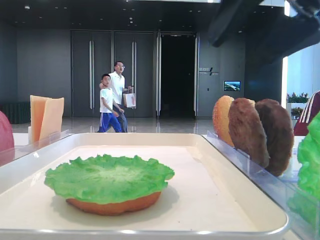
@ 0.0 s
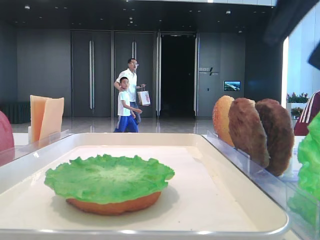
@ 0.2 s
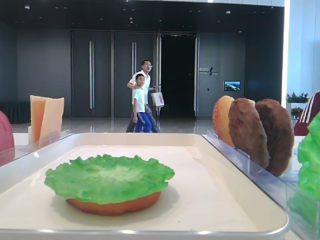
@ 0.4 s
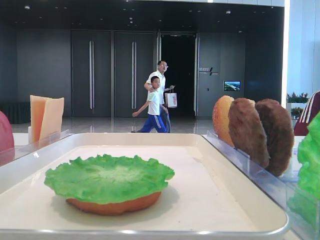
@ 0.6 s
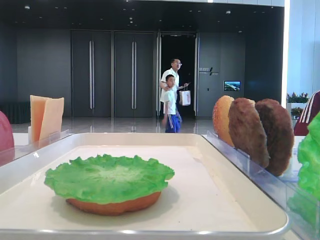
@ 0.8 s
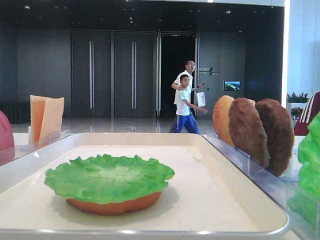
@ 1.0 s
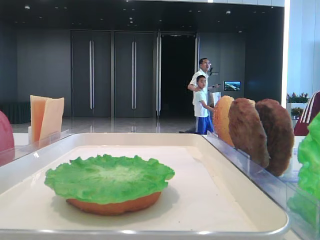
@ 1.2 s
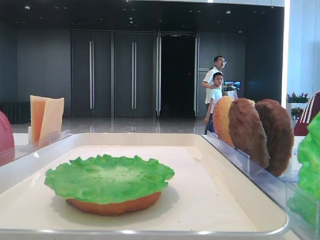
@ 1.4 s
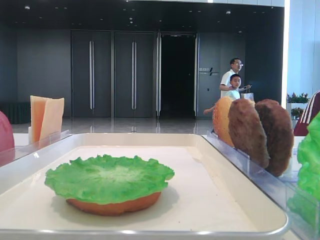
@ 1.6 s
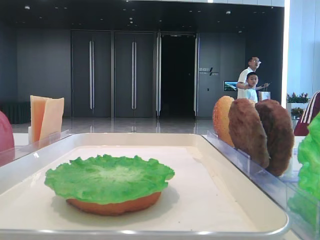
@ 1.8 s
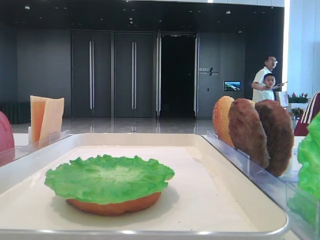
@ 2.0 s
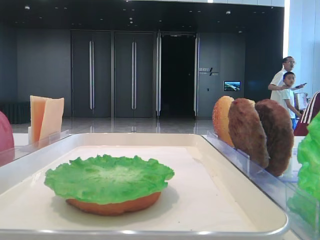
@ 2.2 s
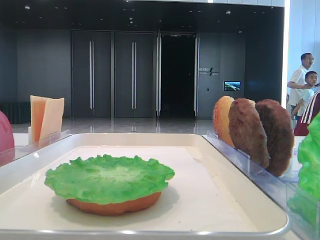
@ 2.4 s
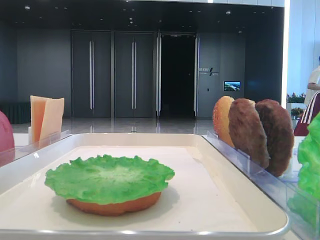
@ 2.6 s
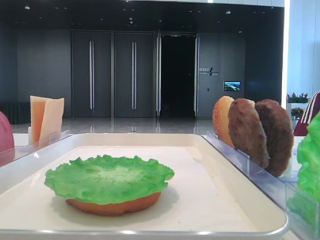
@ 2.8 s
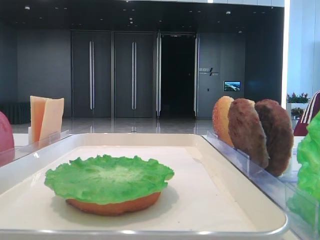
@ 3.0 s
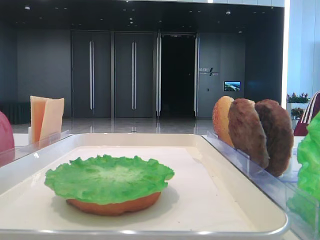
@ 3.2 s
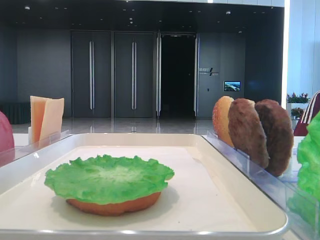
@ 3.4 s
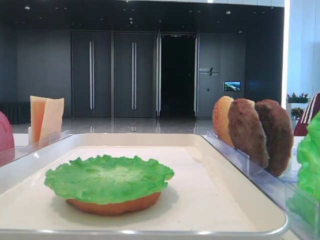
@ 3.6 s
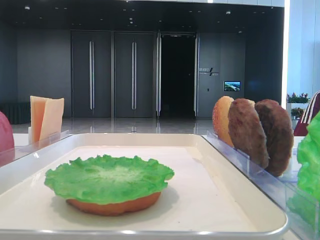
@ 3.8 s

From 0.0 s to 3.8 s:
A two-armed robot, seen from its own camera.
From 0.0 s to 1.2 s: The right gripper is displaced to the right and backward by approximately 15 cm.
From 1.2 s to 2.6 s: The right gripper travels backward by approximately 15 cm.
From 2.6 s to 3.8 s: Neither gripper changes place.

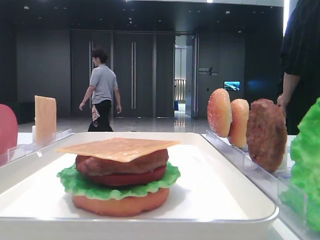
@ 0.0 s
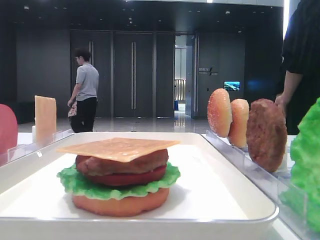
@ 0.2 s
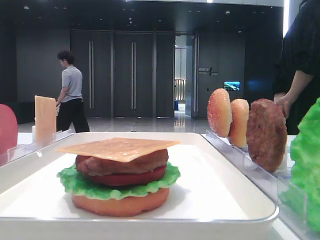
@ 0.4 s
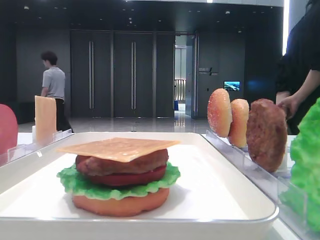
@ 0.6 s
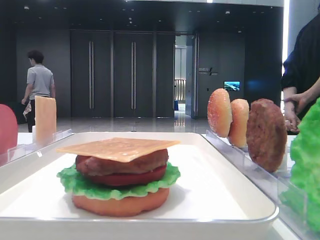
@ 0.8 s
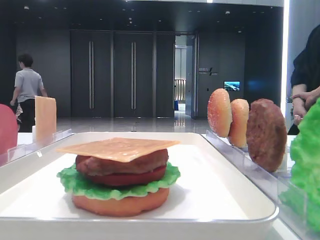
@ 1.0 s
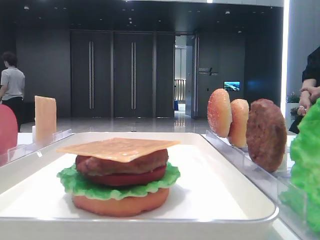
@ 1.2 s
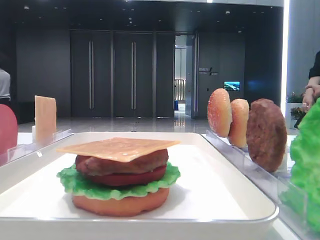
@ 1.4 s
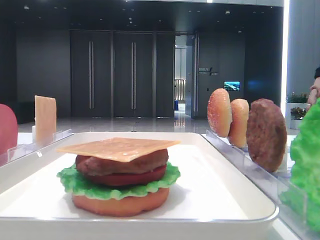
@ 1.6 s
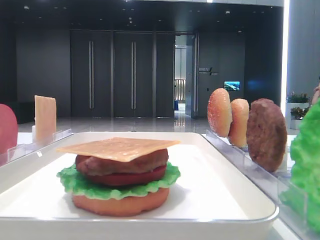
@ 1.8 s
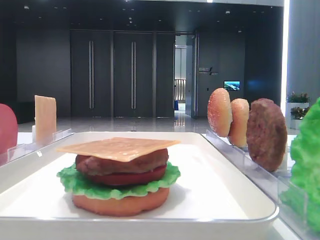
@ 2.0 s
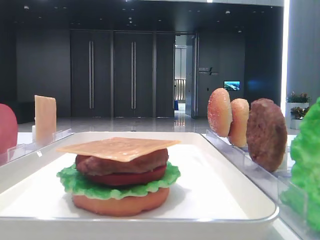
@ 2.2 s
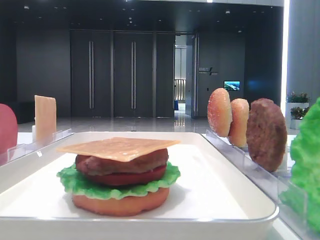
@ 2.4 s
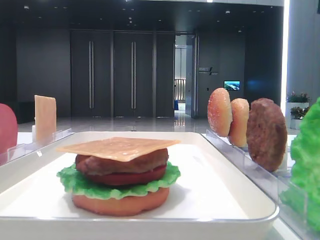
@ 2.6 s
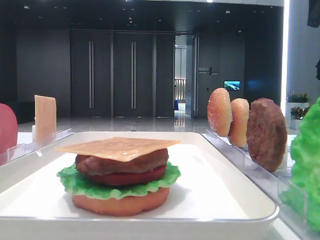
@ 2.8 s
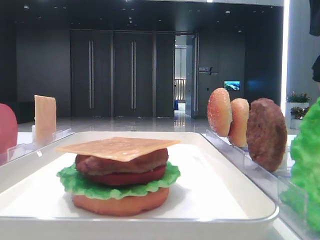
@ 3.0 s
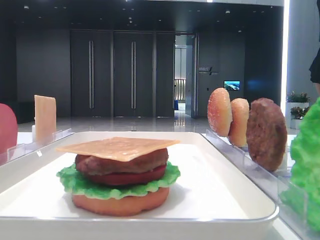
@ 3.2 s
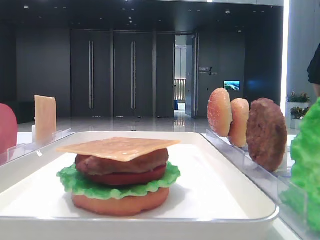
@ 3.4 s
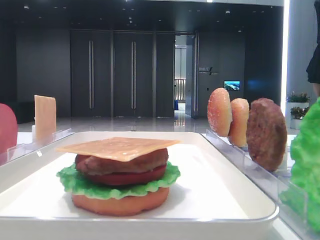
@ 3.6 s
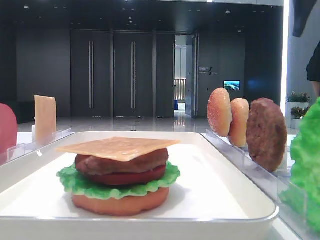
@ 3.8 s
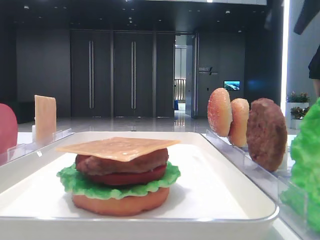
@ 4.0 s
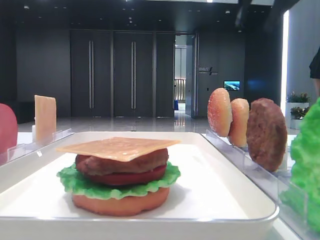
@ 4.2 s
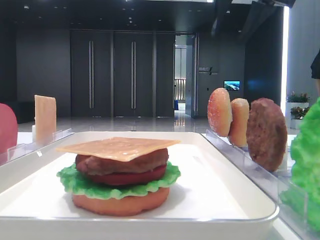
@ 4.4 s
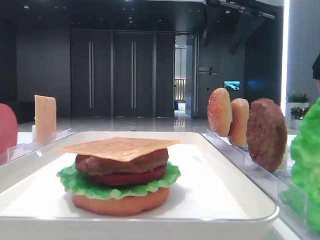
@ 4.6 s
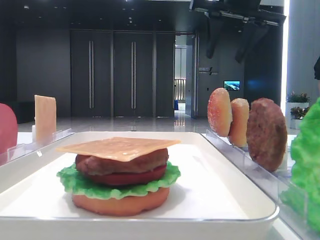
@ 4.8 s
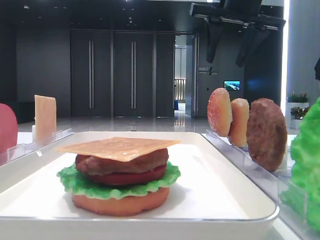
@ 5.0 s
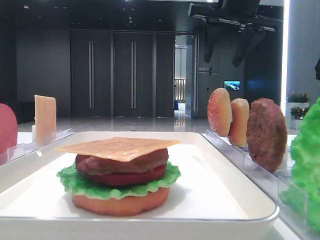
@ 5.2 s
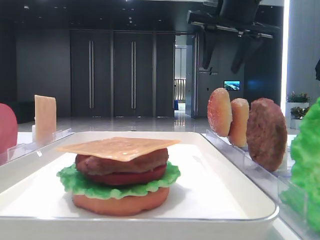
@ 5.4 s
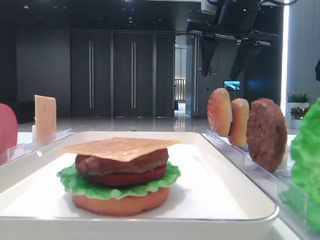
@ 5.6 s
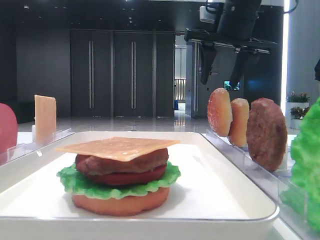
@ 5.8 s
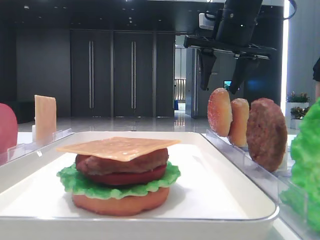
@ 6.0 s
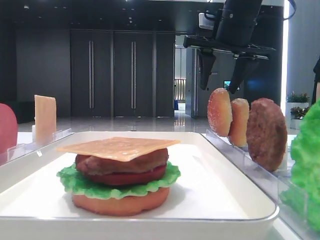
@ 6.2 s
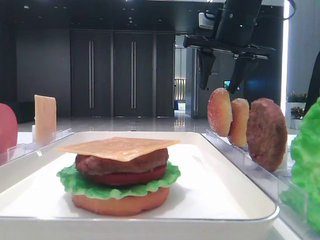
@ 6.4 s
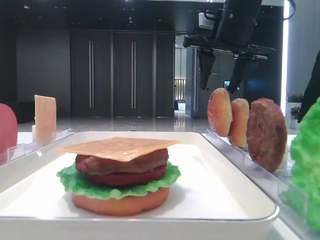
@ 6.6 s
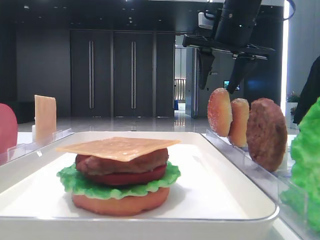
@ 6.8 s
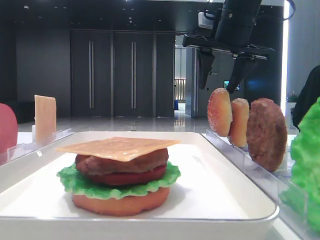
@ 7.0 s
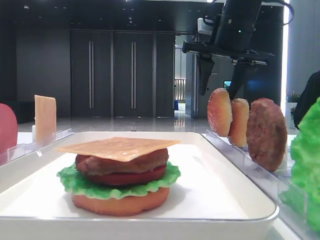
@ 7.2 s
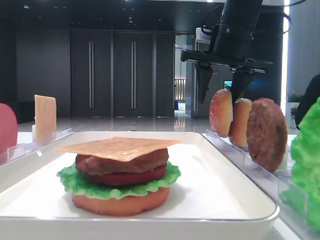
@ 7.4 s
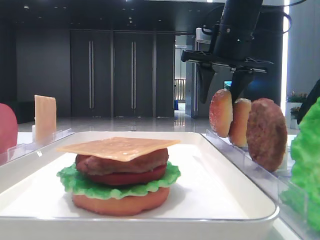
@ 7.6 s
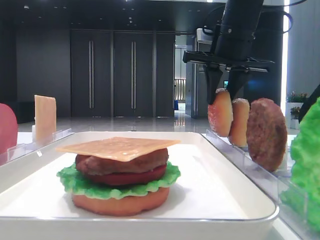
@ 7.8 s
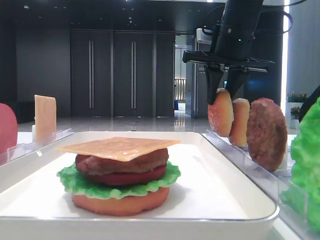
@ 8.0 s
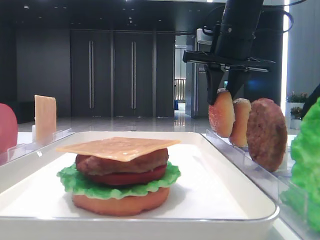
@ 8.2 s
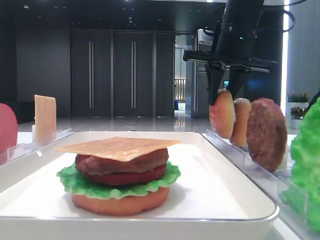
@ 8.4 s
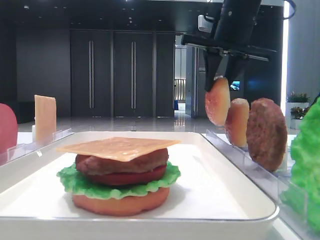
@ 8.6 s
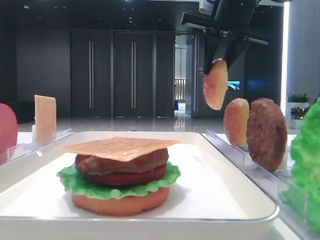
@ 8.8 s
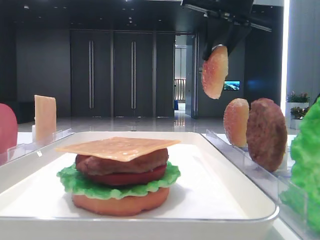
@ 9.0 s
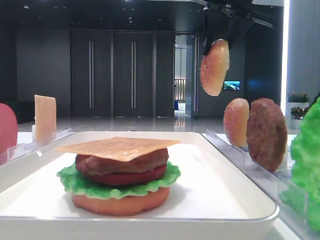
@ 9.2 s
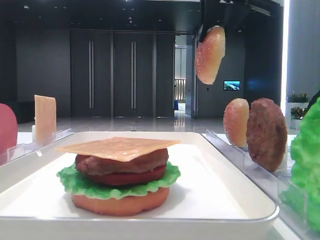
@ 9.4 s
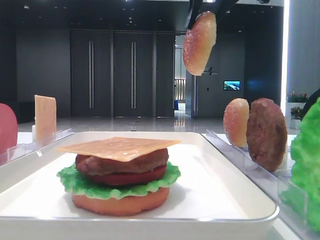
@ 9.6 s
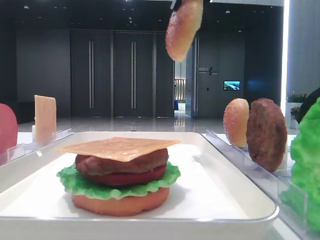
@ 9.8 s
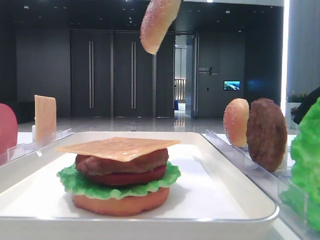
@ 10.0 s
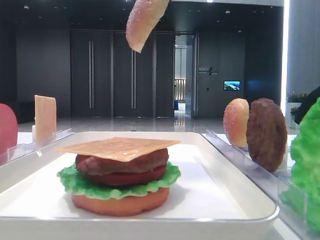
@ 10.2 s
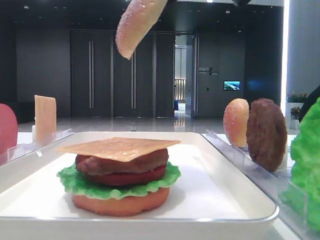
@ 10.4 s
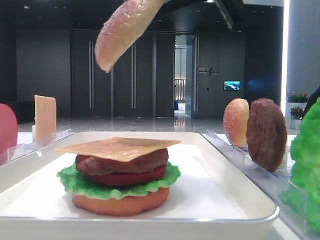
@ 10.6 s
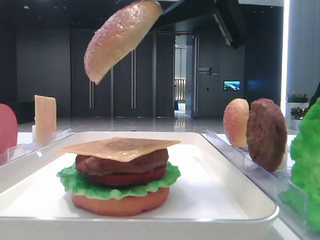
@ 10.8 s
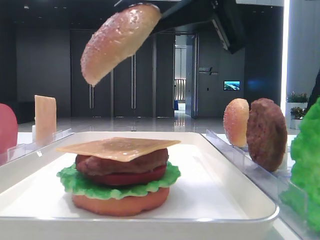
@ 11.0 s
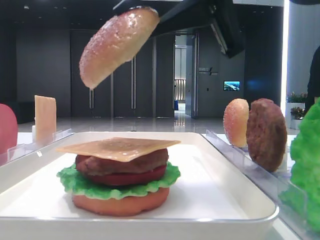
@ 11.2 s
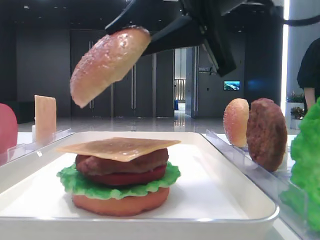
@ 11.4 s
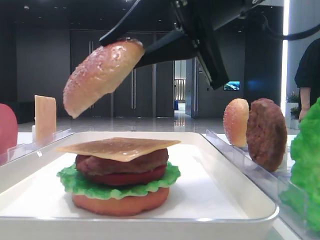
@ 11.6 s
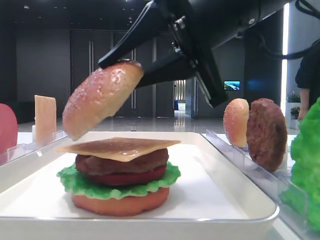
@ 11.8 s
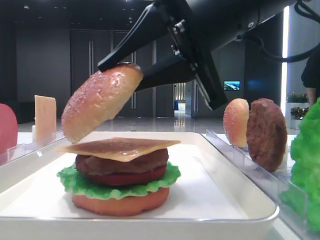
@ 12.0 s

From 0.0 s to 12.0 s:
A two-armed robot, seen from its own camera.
Step, from 0.0 s to 8.0 s: Pick up the top bread slice with the right hand.
From 1.6 s to 3.0 s: The right gripper travels forward by about 30 cm.
From 3.0 s to 4.4 s: The right gripper is displaced to the left by about 15 cm.
From 4.4 s to 6.0 s: The right gripper travels downward by some 10 cm.
From 6.0 s to 7.6 s: The grippers stay close to where they were, moving slightly.
From 7.6 s to 9.0 s: The right gripper travels upward by some 5 cm, and closes.
From 9.0 s to 10.4 s: The right gripper is displaced backward by approximately 15 cm.
From 10.4 s to 12.0 s: The right gripper shifts roughly 10 cm downward.

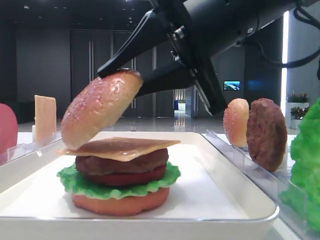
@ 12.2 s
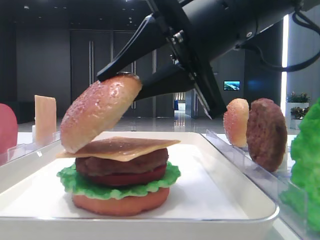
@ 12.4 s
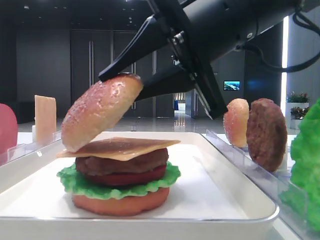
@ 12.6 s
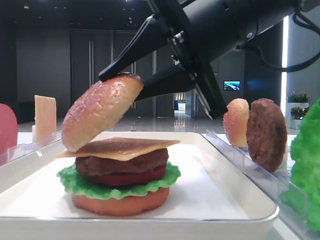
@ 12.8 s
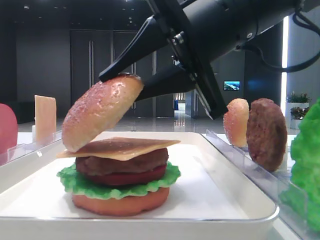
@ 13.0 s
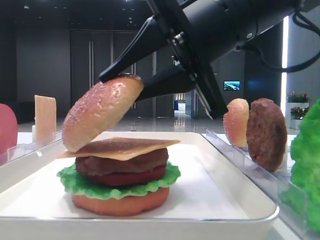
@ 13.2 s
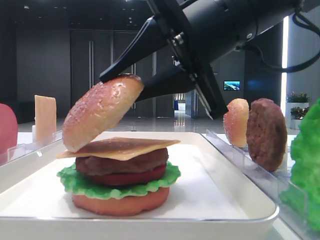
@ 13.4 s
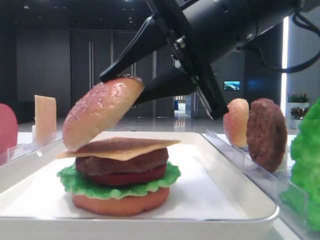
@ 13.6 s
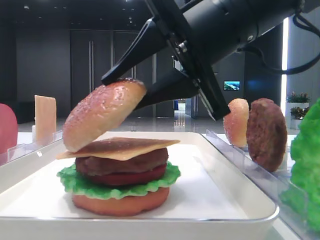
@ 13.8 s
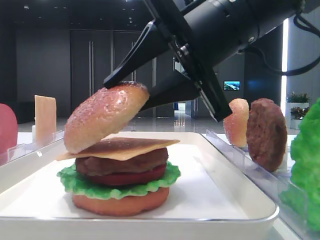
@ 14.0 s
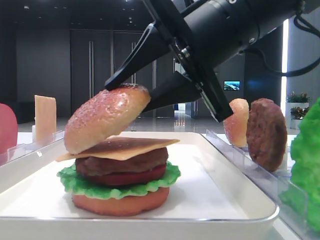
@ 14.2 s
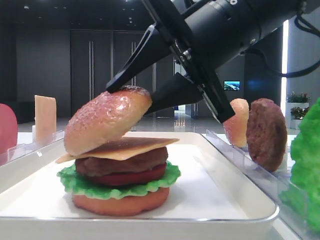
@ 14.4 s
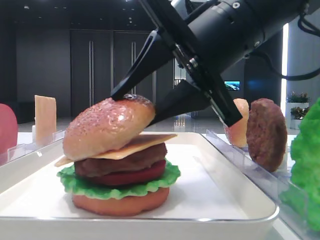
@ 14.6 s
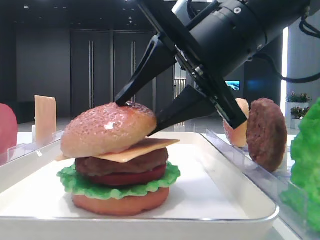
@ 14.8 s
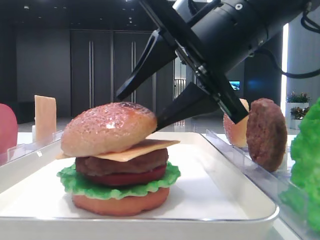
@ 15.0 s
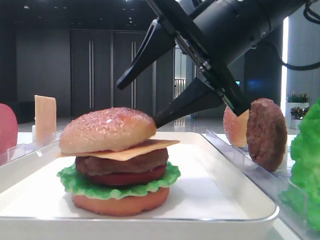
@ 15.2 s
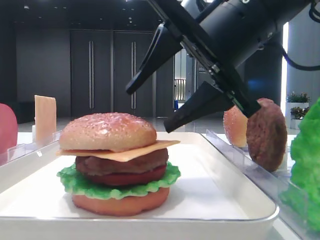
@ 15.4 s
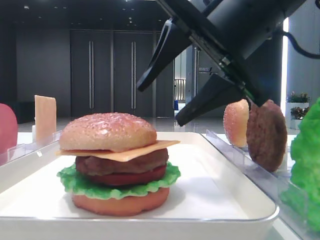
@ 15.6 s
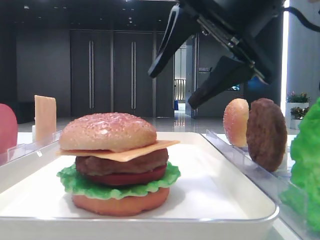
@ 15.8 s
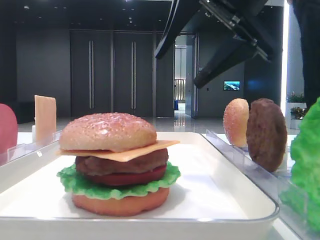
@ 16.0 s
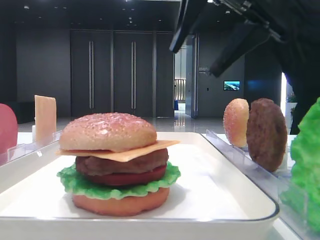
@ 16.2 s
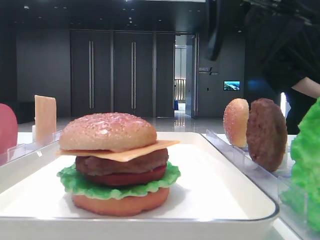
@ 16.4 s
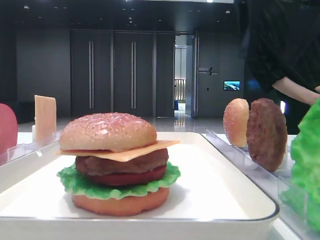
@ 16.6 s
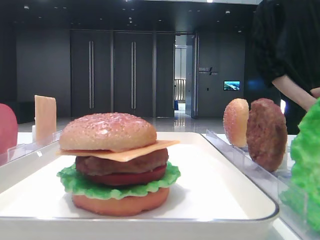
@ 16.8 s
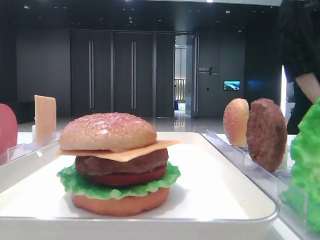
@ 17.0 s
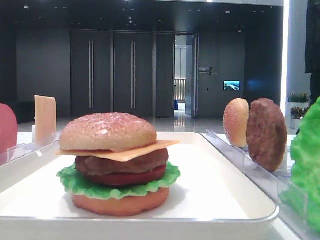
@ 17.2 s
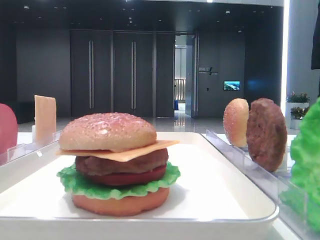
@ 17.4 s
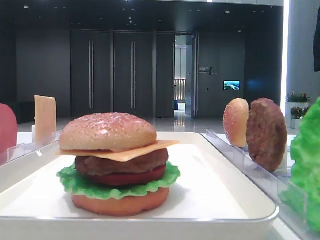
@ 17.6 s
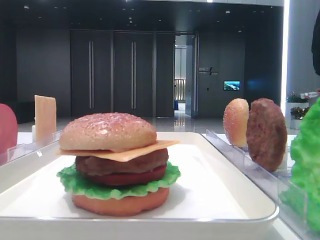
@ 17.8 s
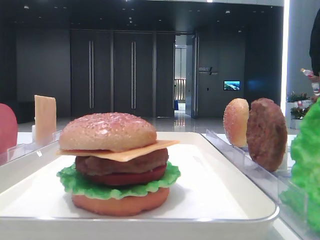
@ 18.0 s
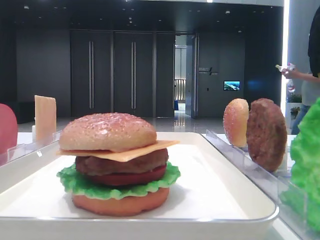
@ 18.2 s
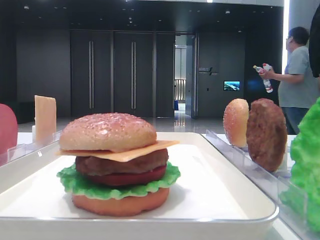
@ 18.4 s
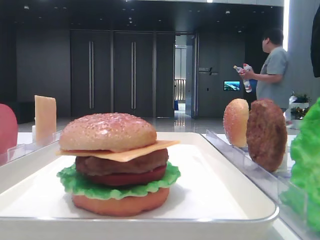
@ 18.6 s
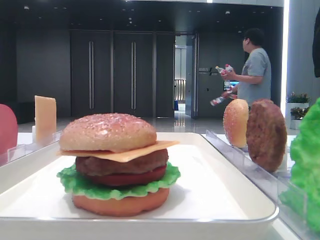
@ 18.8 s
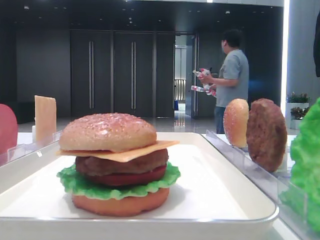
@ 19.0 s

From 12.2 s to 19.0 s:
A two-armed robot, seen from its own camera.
Step, from 12.2 s to 15.2 s: Place the top bread slice on the cheese with the right hand.
From 12.2 s to 13.6 s: Both grippers stay put.
From 13.6 s to 15.0 s: The right gripper opens.
From 15.0 s to 16.2 s: The right gripper heads upward, covering about 10 cm.
From 16.2 s to 17.6 s: The right gripper heads to the right, covering roughly 20 cm.
From 17.6 s to 19.0 s: The right gripper goes about 25 cm backward.
